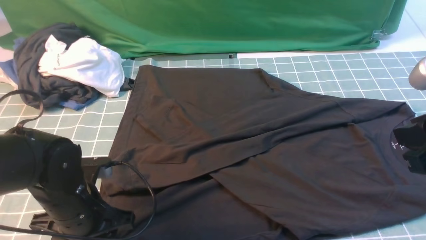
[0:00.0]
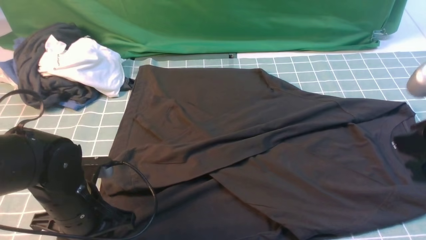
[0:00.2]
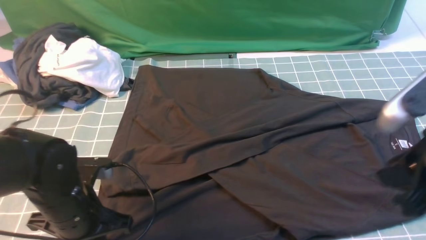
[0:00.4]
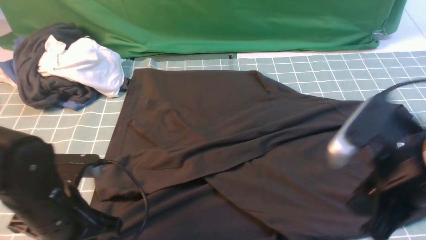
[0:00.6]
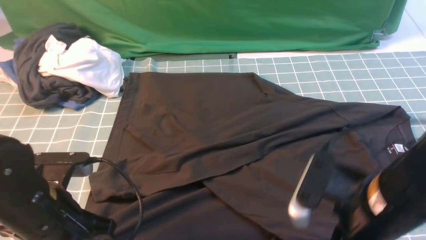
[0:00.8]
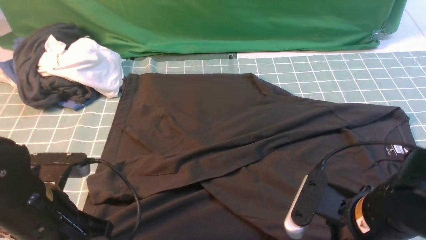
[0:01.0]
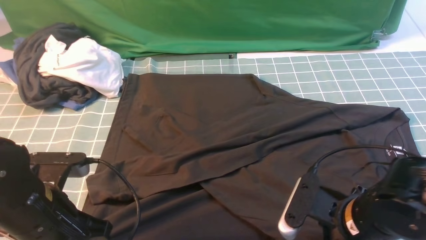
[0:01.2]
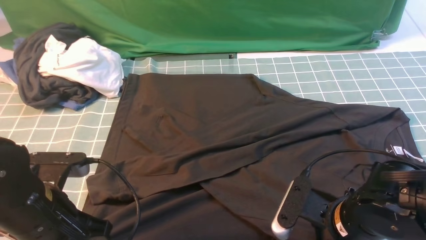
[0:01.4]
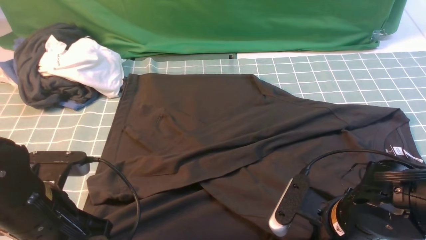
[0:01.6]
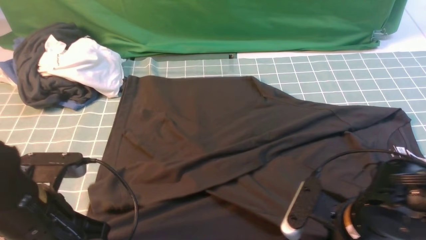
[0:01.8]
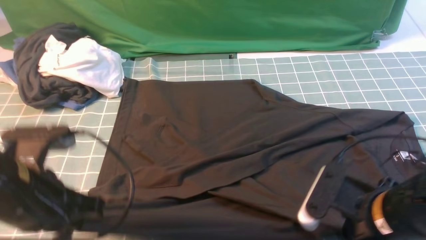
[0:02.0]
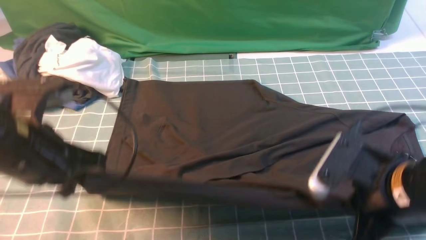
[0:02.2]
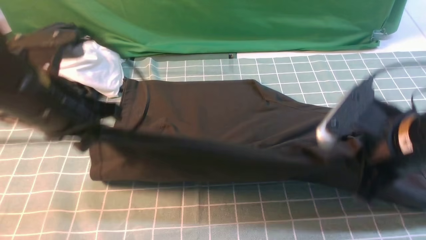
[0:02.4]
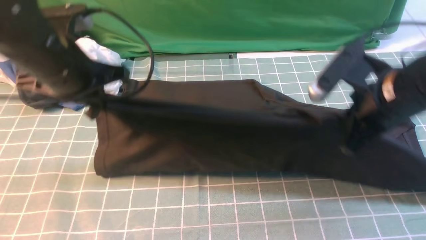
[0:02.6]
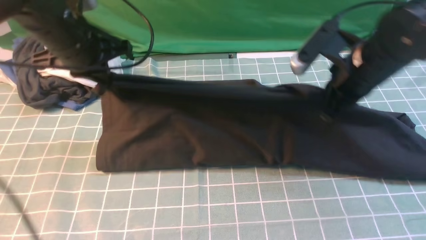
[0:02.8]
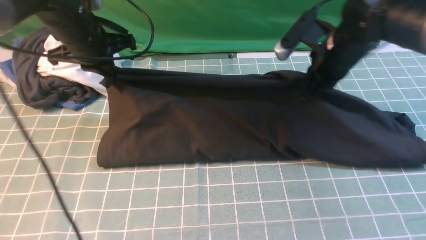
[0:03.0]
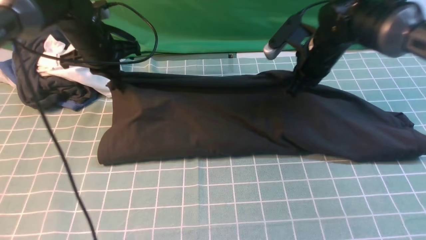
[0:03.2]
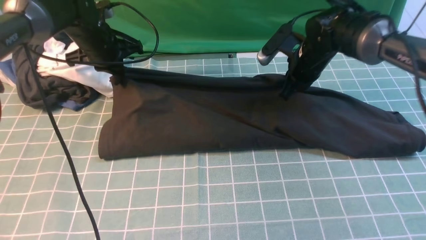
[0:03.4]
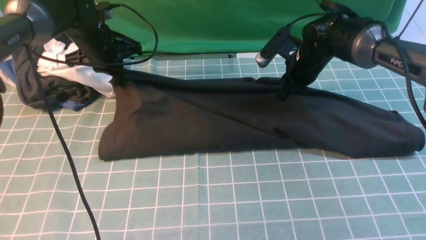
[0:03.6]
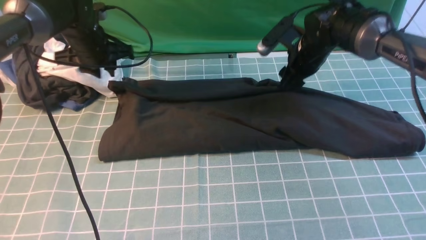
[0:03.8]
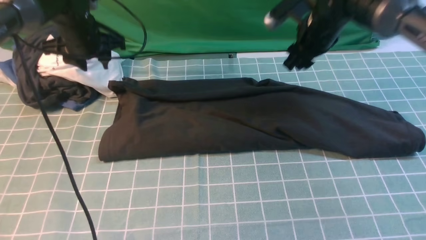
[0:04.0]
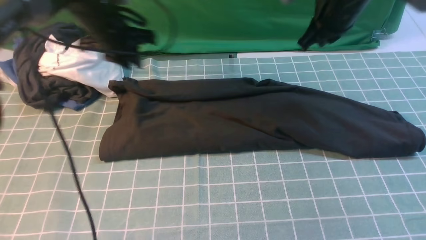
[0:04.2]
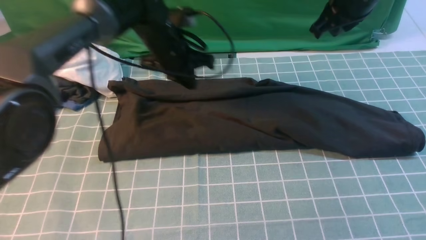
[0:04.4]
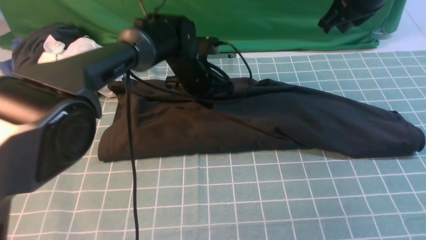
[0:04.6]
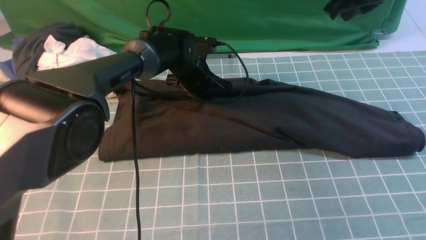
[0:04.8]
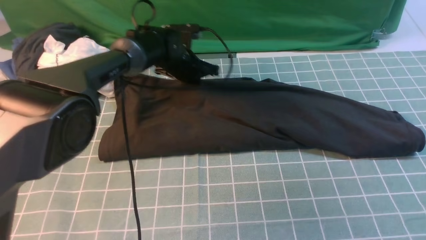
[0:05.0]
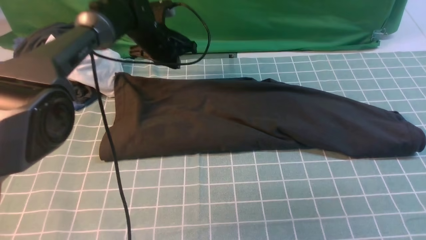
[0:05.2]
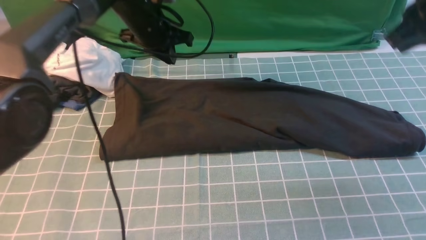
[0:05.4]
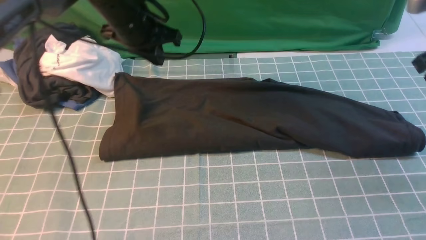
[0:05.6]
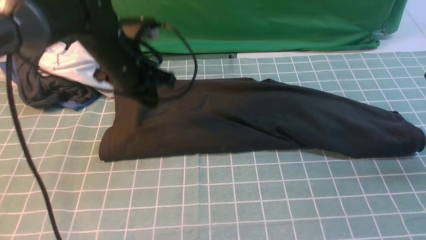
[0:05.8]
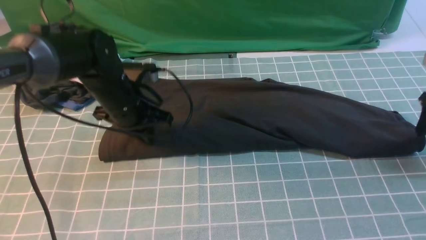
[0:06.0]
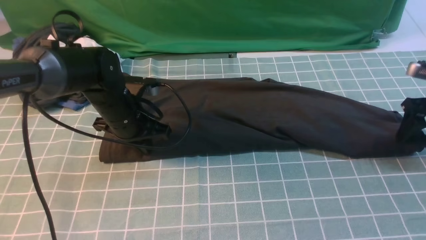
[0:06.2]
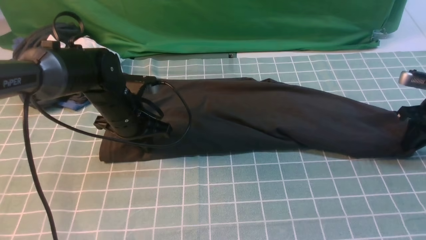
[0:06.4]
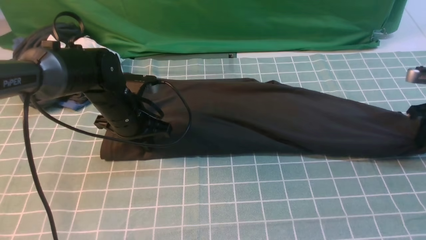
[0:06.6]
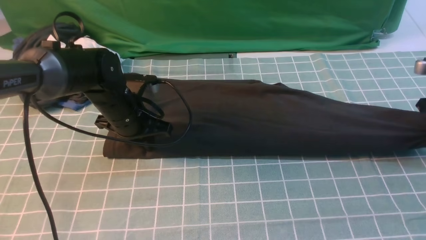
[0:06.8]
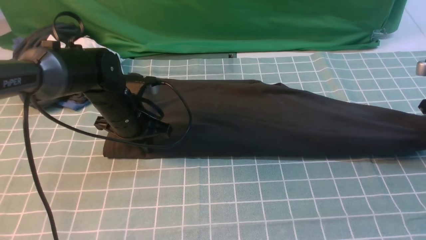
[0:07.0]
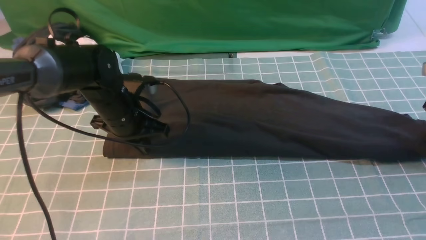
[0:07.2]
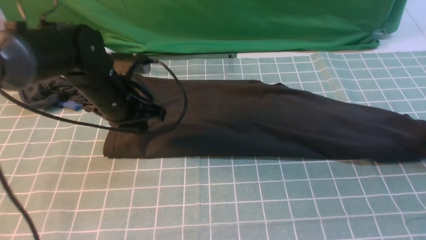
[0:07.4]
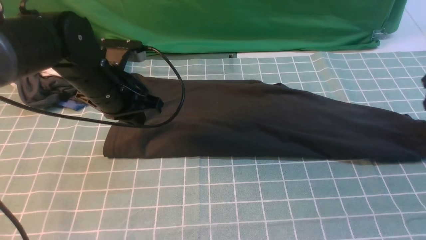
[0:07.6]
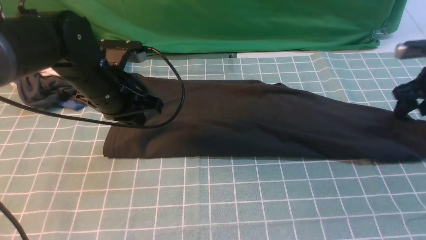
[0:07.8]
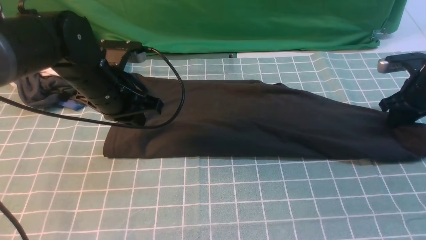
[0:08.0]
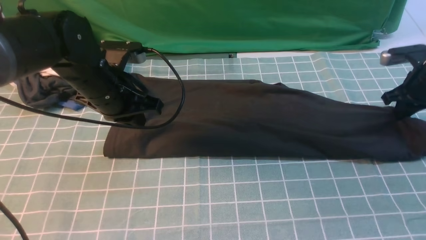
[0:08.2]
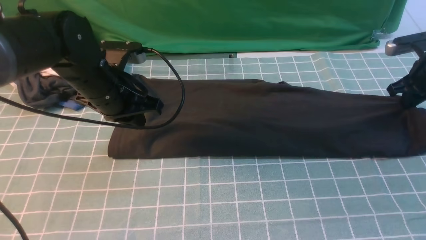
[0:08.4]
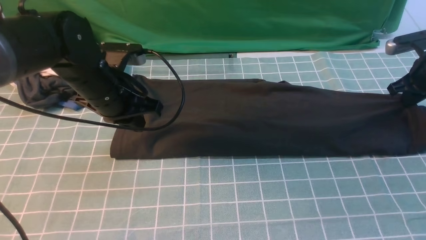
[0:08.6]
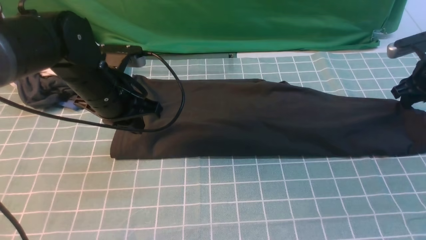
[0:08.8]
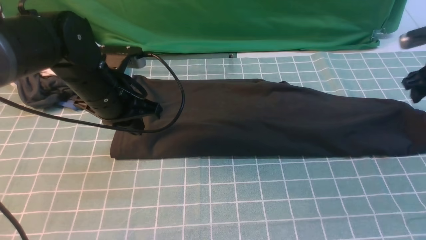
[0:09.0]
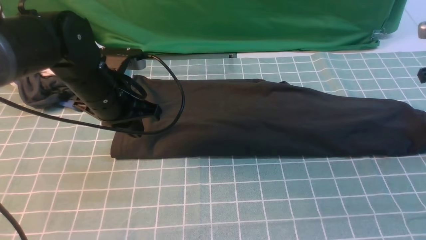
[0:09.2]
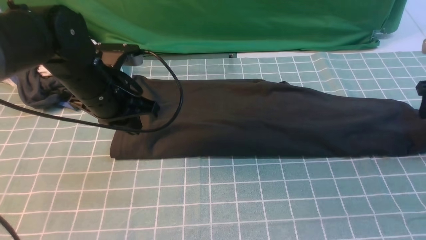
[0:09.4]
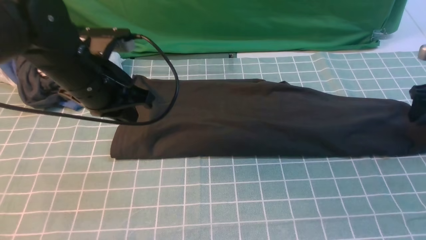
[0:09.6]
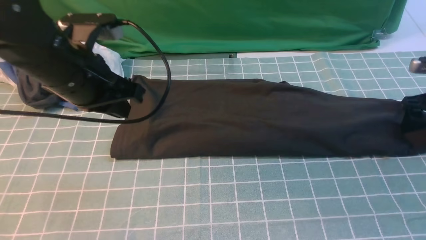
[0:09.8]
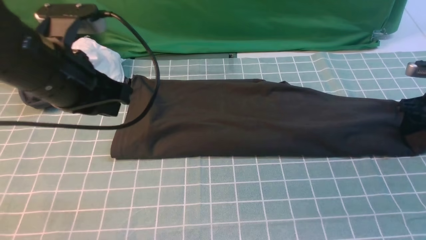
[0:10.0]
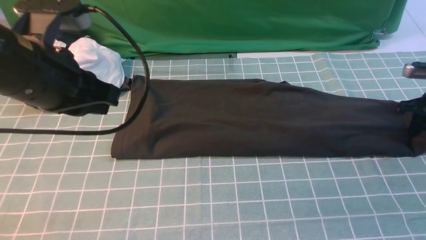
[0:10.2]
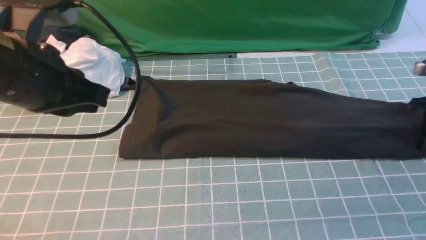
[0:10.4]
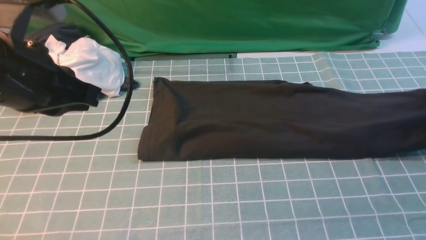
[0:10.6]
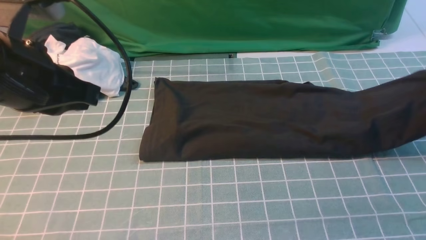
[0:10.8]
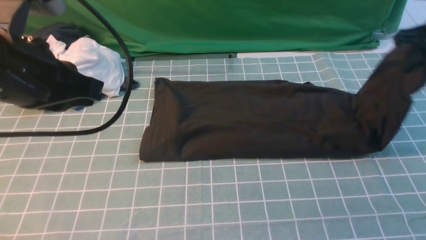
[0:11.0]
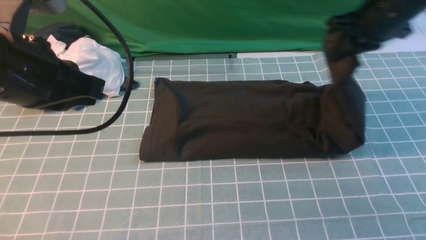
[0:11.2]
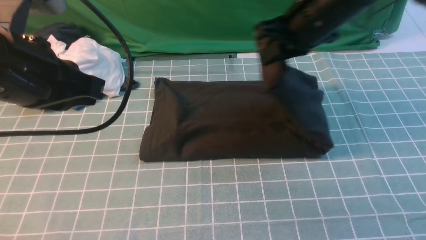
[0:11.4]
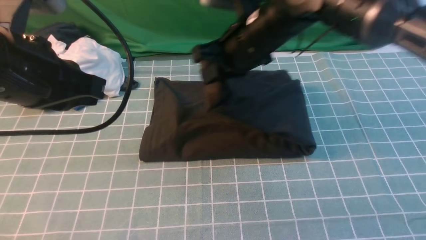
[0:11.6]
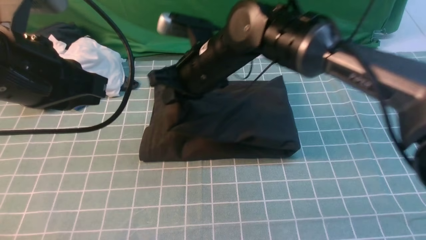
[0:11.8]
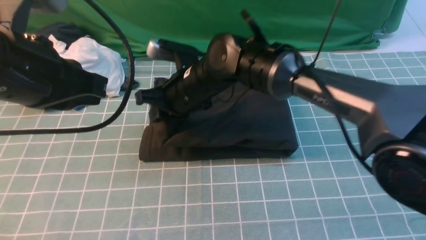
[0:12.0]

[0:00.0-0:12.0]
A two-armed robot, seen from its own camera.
Step, 1.8 to 3.8 s: use both arms to drag the lower edge of the fabric forward and fold it over the upper edge.
Step, 4.0 to 10.0 s: use the right arm to clamp the right edge of the fabric.
0.0 to 1.6 s: The right gripper is displaced downward and to the left by approximately 20 cm, and opens and closes again. The left gripper heads upward, covering approximately 5 cm, and closes up.
1.6 to 3.0 s: The grippers both shift forward by approximately 25 cm.
3.0 to 4.4 s: The right gripper is displaced upward by about 10 cm, and opens, then closes once more, while the left gripper goes about 15 cm to the right and downward, and opens, then closes once more.
4.4 to 6.0 s: The left gripper travels backward and to the left by about 10 cm; the right gripper is displaced to the right and downward by some 25 cm, and opens its fingers.
6.0 to 7.6 s: The right gripper closes, then opens again, while the left gripper moves approximately 5 cm.
7.6 to 9.0 s: The right gripper closes, then reopens.
9.0 to 10.4 s: The right gripper changes place by some 5 cm, and closes up. The left gripper heads upward and backward, covering roughly 15 cm.
10.4 to 12.0 s: The right gripper moves to the left, roughly 50 cm.

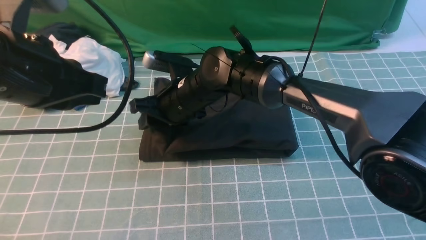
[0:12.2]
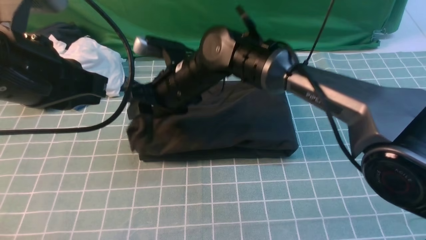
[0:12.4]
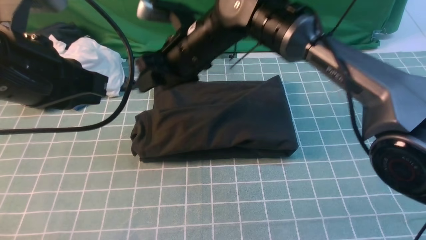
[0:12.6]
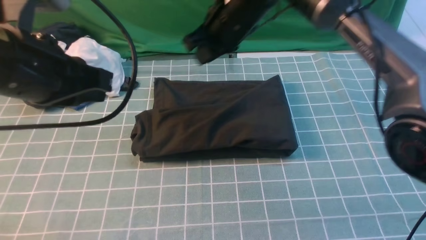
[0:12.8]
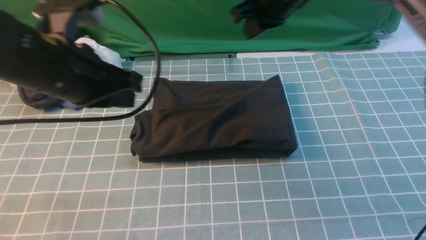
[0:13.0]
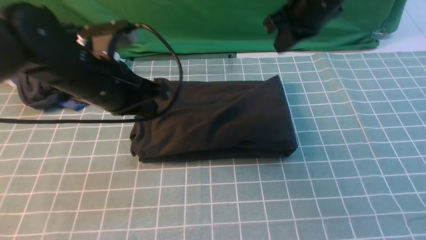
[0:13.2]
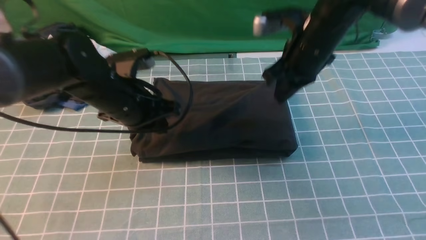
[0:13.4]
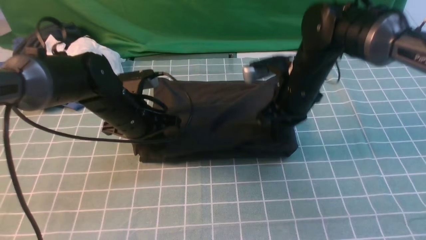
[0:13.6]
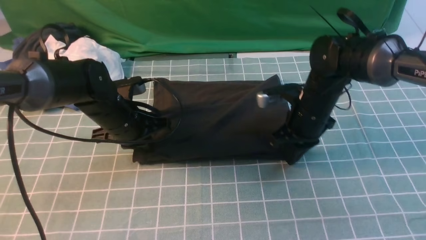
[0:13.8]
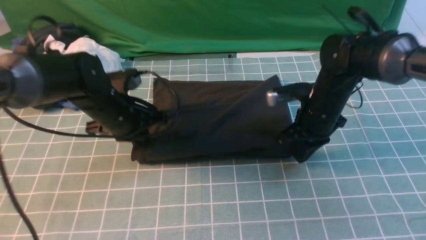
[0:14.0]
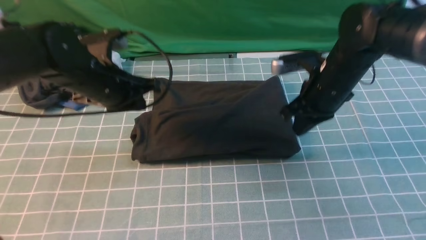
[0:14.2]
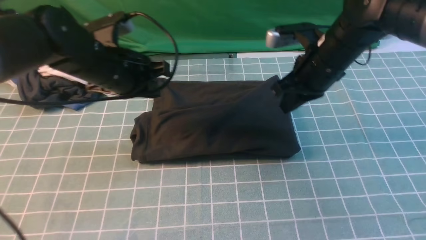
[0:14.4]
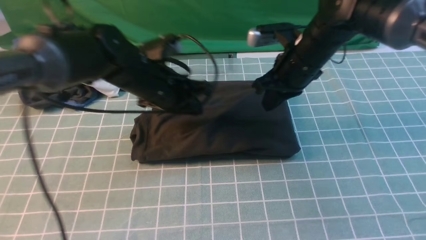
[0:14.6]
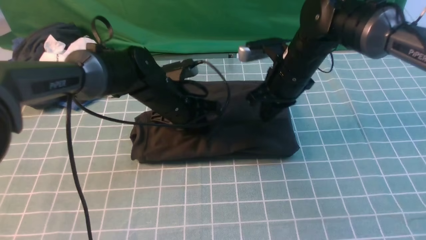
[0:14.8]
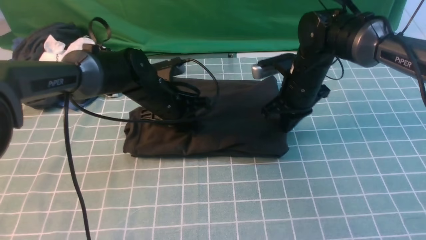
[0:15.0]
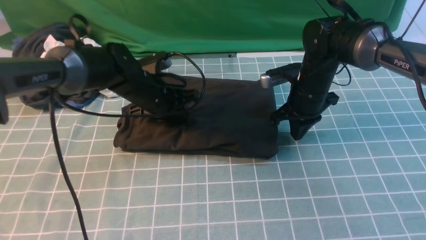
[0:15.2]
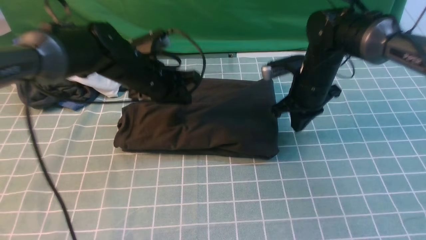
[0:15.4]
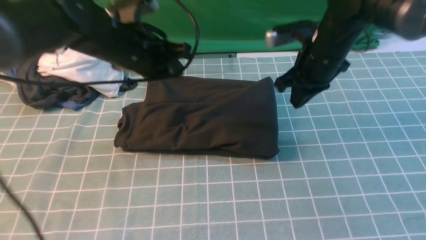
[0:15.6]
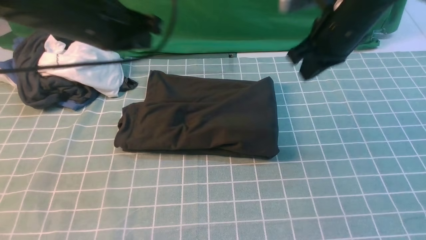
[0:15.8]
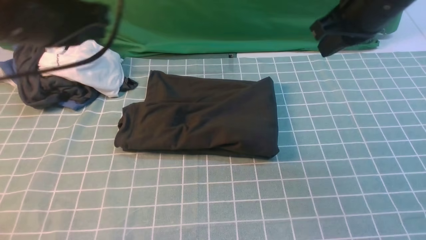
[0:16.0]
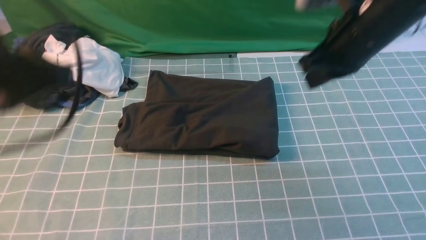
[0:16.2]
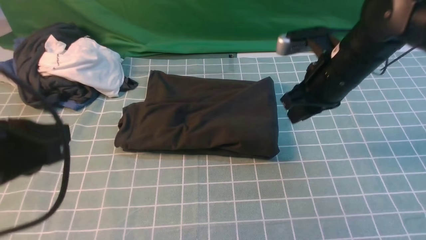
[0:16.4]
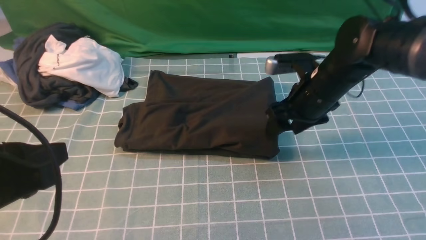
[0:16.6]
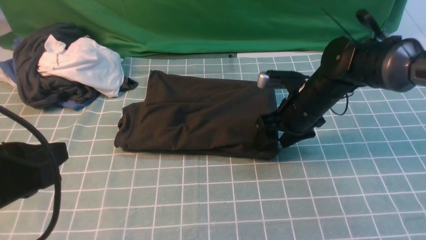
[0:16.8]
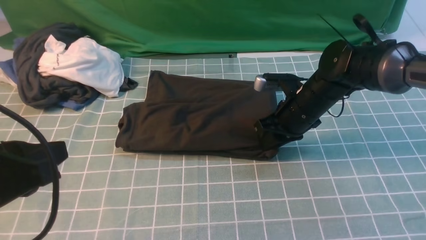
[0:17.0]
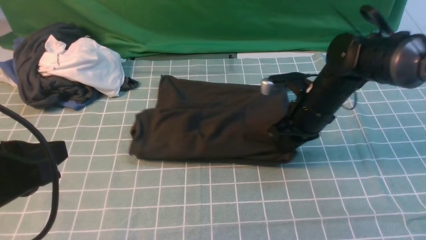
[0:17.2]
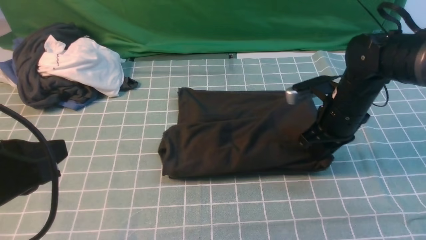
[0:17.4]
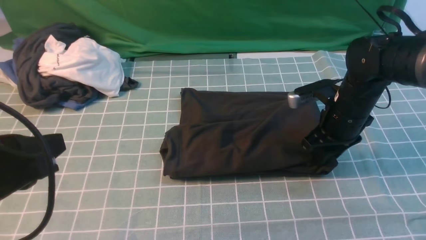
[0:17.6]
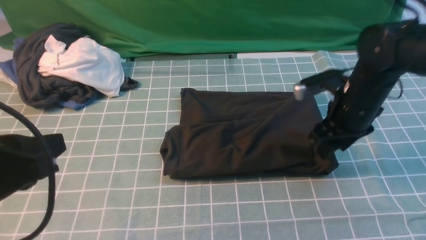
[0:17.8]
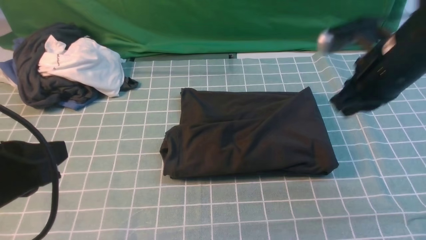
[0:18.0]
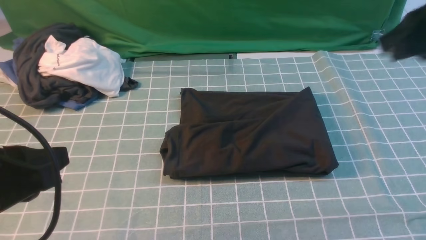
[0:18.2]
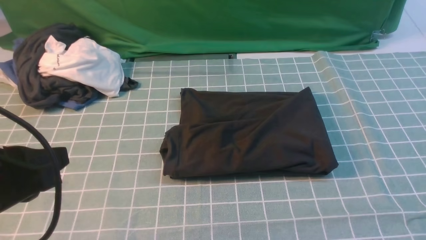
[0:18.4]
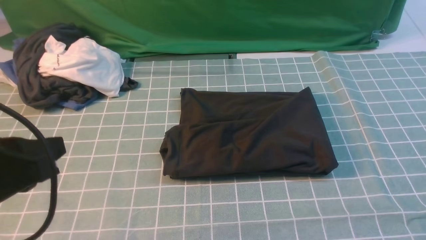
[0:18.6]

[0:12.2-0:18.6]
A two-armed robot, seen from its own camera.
12.2 to 13.8 s: The left gripper travels downward and forward by about 25 cm. Meanwhile the right gripper is displaced to the right by approximately 20 cm, and closes.
13.8 to 15.4 s: The left gripper swings up and down, some 10 cm each way, with 2 reversals, while the right gripper ends up about 5 cm from where it was.
15.4 to 17.0 s: The right gripper reaches approximately 15 cm upward, then returns, and opens. The left gripper heads backward, covering some 30 cm.
17.0 to 18.6 s: The right gripper shifts roughly 40 cm backward, upward and to the right, and closes up.
